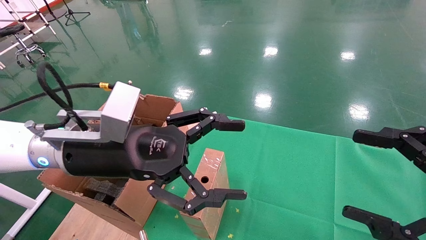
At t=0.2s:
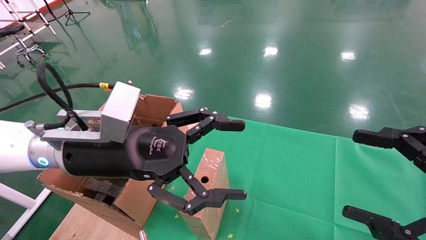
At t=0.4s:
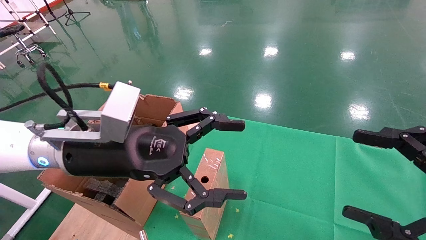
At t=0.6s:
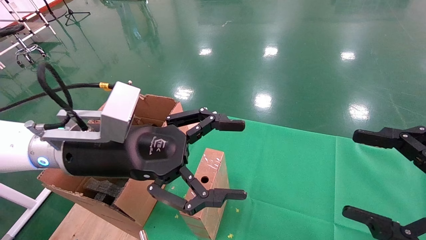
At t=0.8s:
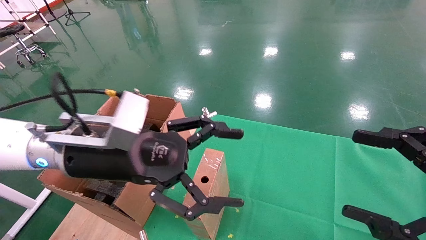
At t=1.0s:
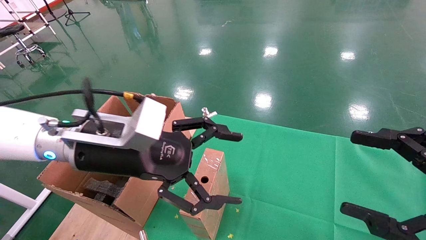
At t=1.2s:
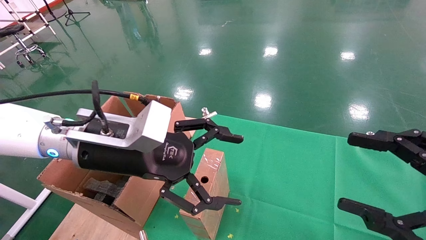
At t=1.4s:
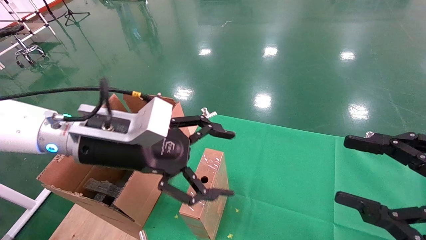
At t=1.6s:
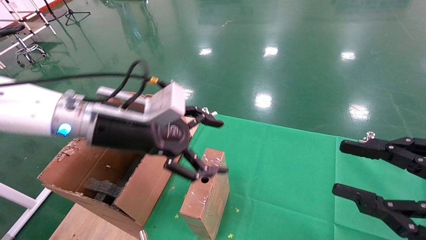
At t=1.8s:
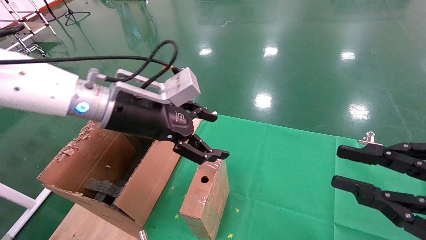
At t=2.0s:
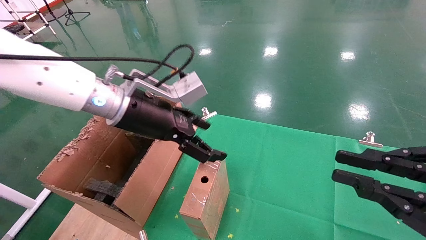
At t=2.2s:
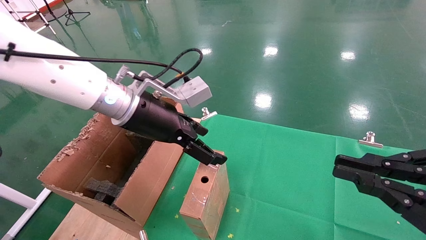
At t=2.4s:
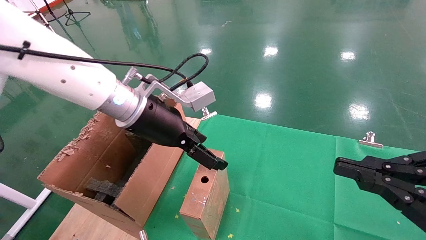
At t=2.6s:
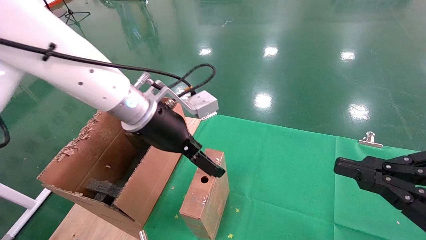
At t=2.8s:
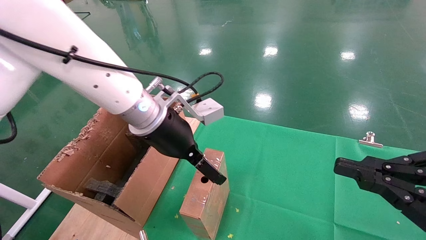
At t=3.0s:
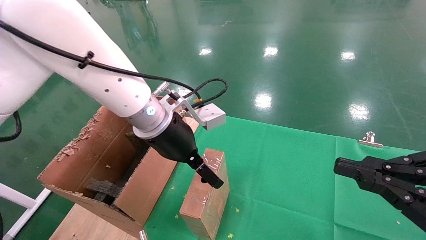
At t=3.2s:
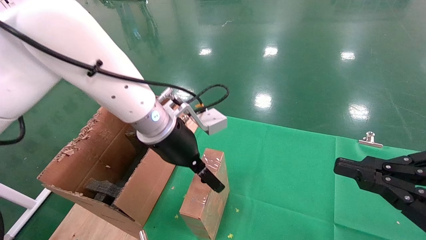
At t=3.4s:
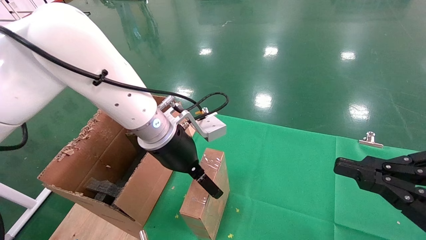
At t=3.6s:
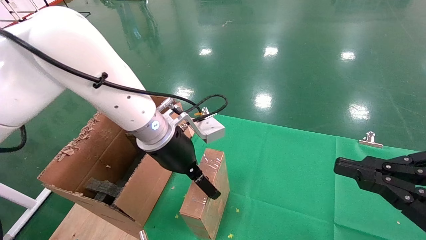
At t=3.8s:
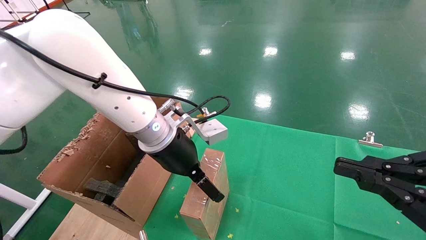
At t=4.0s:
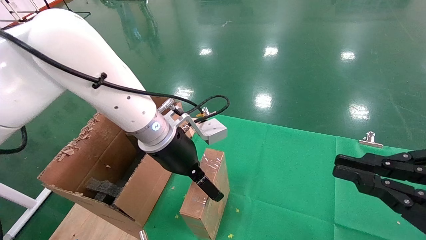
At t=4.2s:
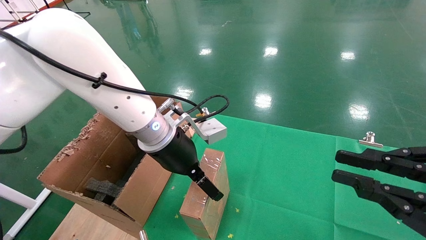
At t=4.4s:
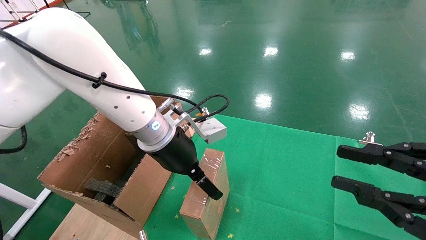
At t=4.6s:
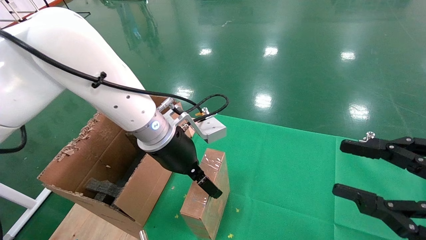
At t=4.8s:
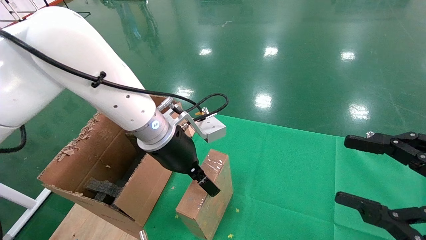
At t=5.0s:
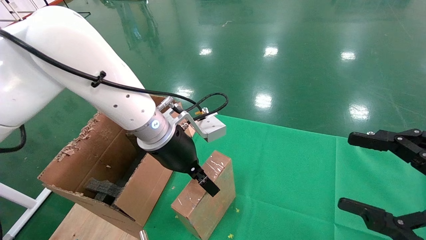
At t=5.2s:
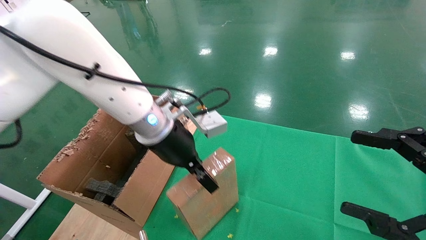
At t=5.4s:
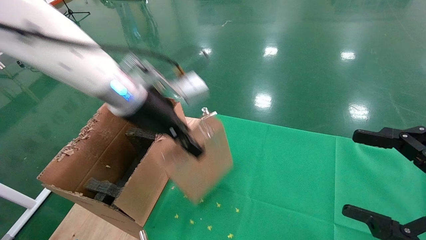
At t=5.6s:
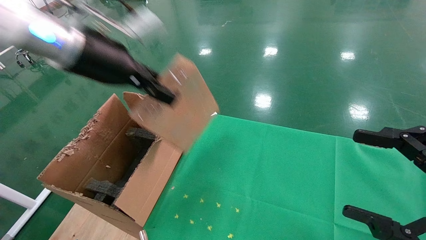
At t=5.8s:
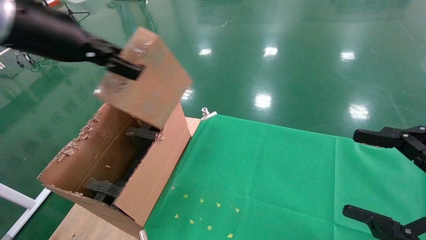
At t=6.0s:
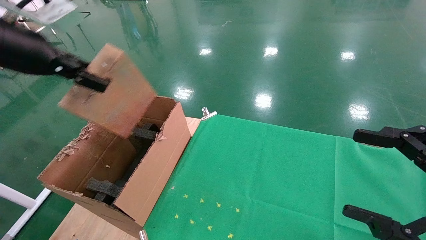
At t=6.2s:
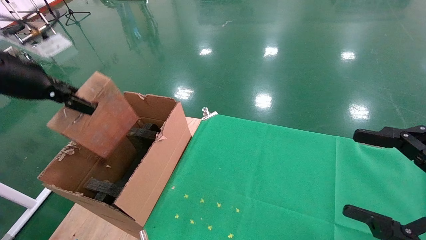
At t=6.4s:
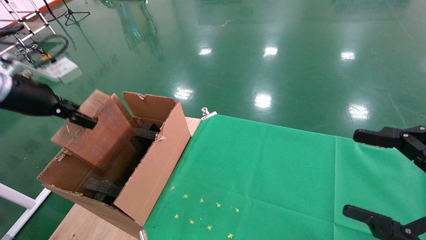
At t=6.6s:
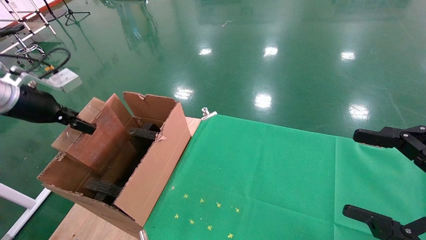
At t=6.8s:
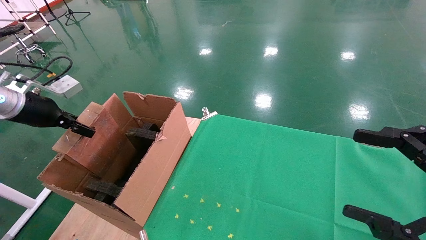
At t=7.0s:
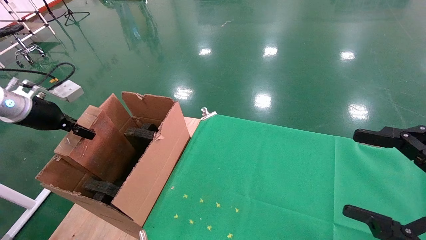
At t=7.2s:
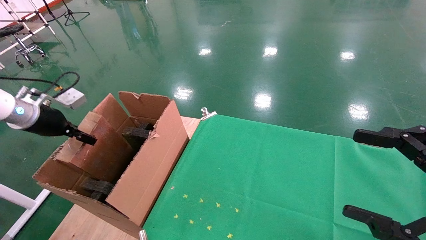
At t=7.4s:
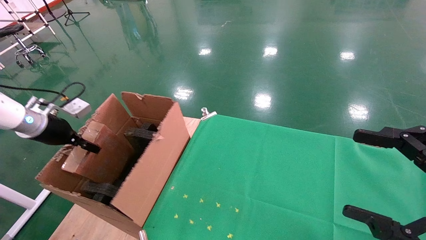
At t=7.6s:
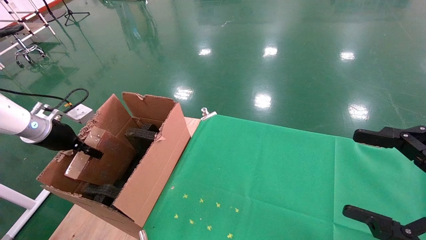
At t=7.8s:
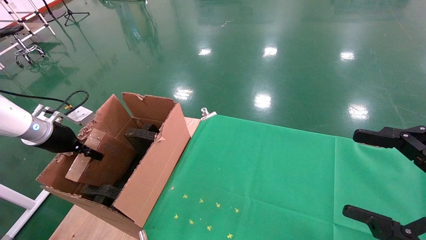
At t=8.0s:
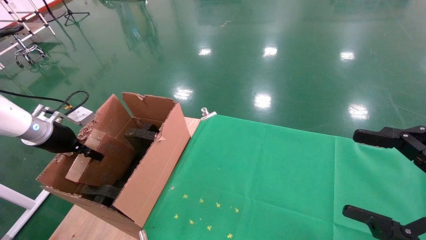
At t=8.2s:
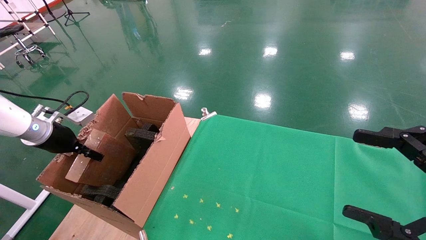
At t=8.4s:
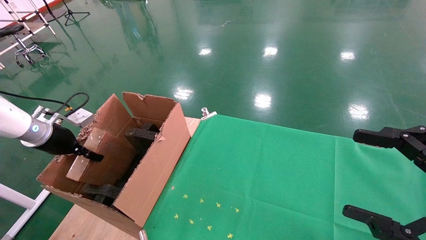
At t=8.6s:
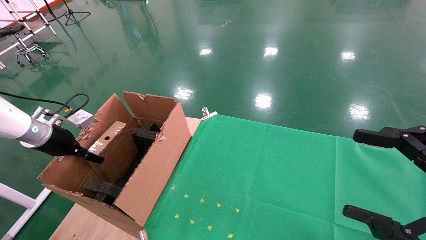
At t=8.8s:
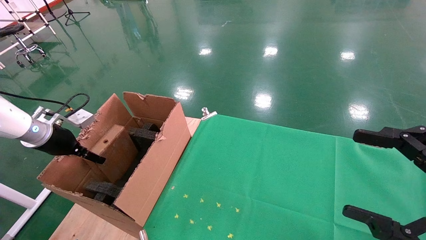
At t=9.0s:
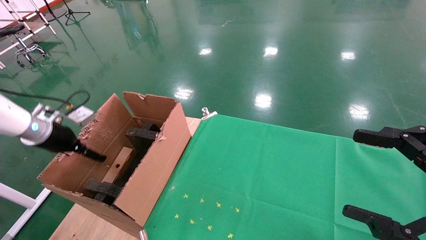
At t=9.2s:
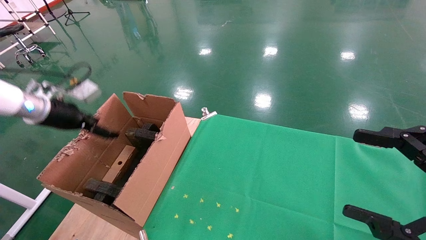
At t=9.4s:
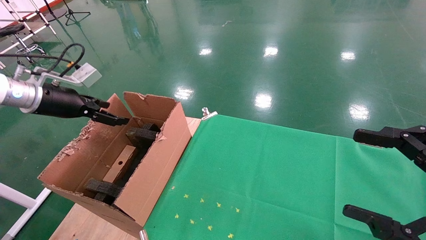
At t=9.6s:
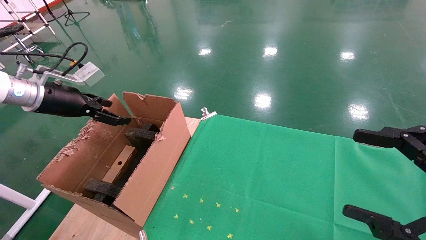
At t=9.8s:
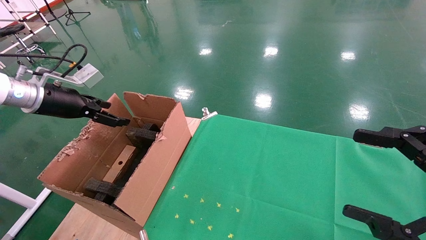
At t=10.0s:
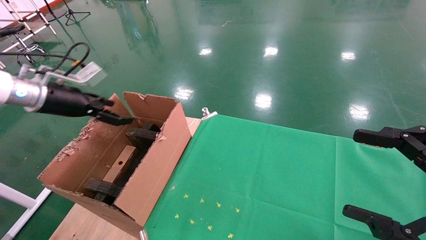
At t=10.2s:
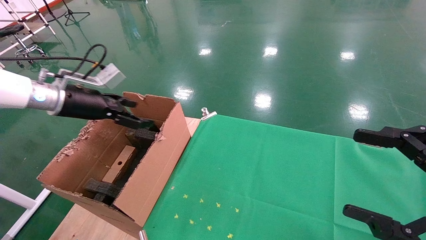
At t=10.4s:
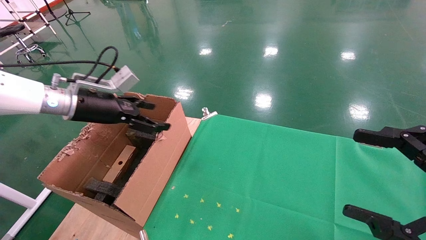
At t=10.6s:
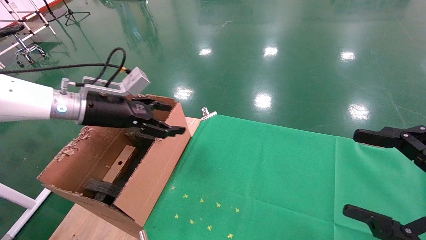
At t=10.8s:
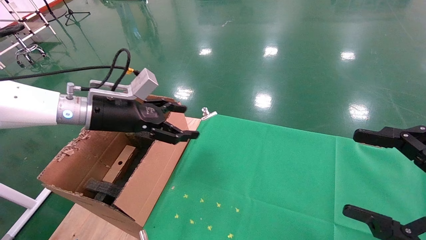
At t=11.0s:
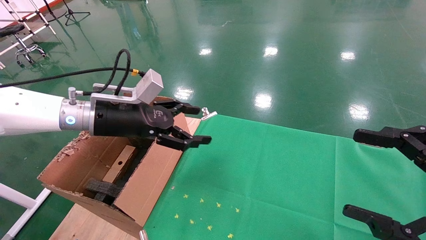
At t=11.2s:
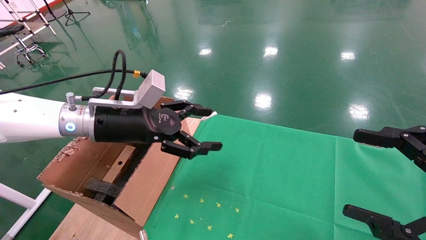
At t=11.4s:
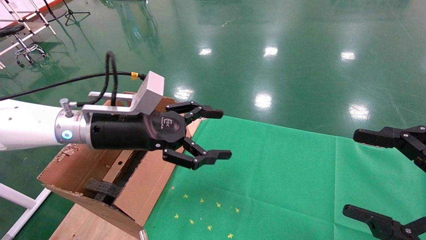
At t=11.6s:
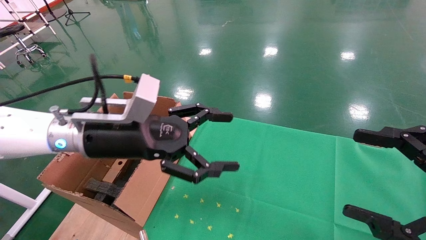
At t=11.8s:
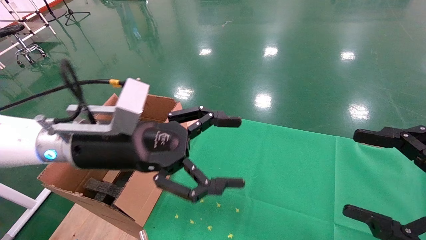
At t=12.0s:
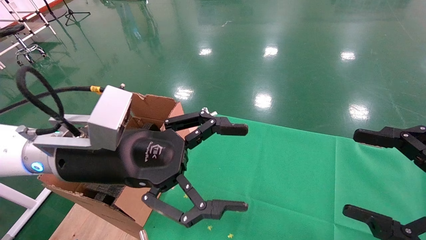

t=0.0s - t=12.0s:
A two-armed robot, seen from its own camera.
Task of the whole recording: using a robotic arm to pick up a cardboard box and palace it the carton.
Step, t=1.0s - t=5.0s: Pick up the mouse and the power cord paper box.
Step, t=5.2s - t=9.2s: Place the mouse and the power cord paper box into the container.
t=0.0s - t=1.6s: The left gripper moves about 5 cm. The right gripper closes its fingers.
t=1.6s - t=3.0s: The left gripper moves to the right, about 5 cm; the right gripper closes up.
t=3.0s - t=4.4s: The grippers stay close to where they were, moving slightly.
t=4.4s - t=6.0s: The right gripper opens up. Meanwhile the left gripper is displaced to the left and upward by roughly 25 cm, and closes up.
t=6.0s - t=7.6s: The left gripper moves downward, to the left and forward, about 25 cm.
t=7.6s - t=9.0s: The left gripper opens its fingers.
t=9.0s - t=10.4s: The left gripper goes approximately 10 cm to the right.
t=10.4s - t=12.0s: The left gripper heads to the right and backward, covering approximately 20 cm.

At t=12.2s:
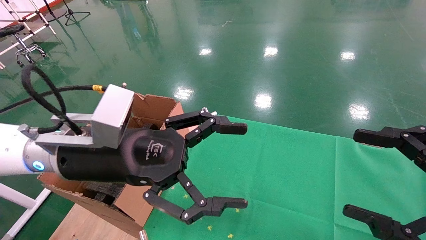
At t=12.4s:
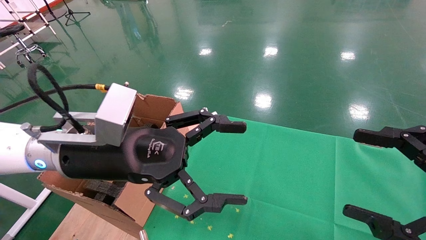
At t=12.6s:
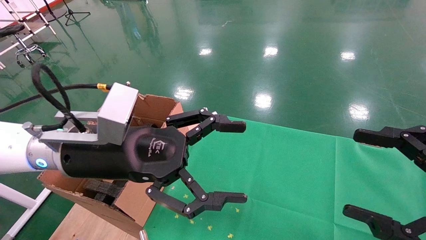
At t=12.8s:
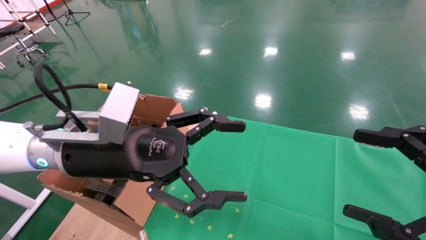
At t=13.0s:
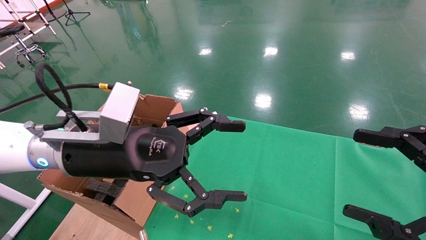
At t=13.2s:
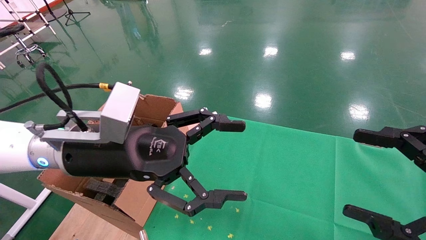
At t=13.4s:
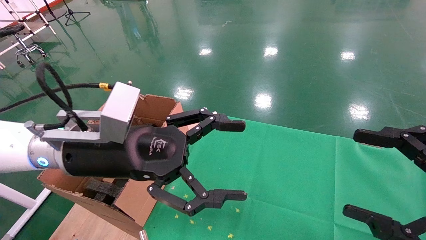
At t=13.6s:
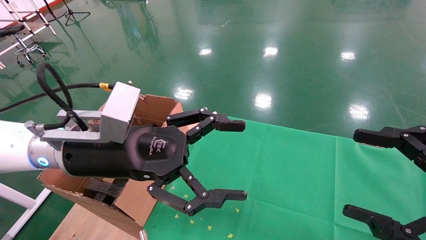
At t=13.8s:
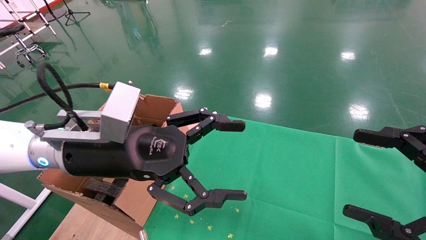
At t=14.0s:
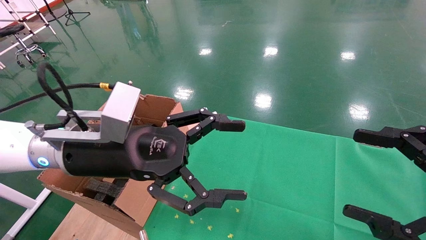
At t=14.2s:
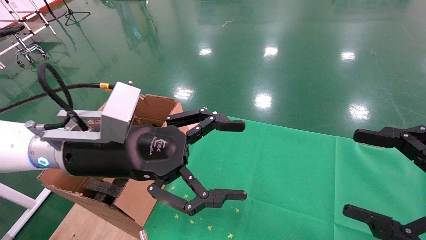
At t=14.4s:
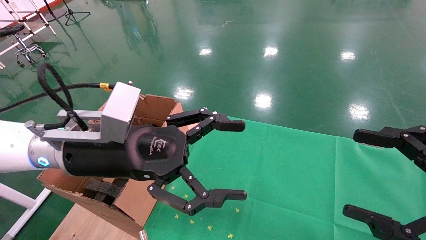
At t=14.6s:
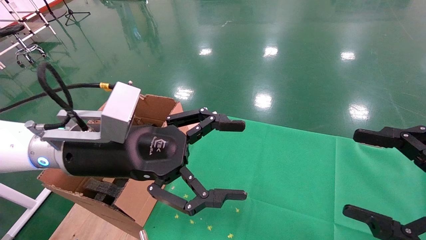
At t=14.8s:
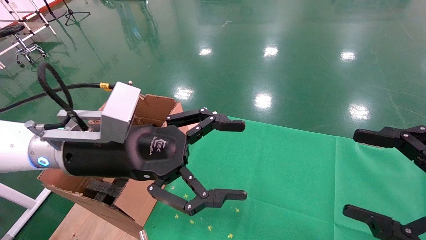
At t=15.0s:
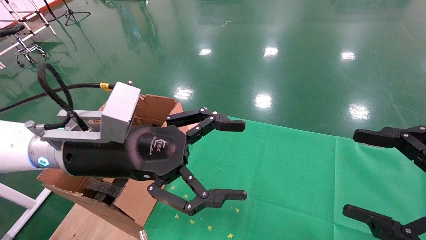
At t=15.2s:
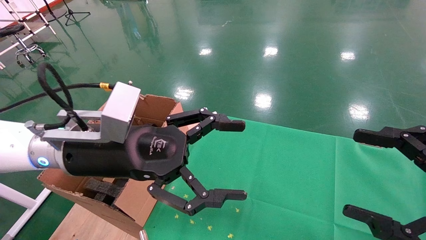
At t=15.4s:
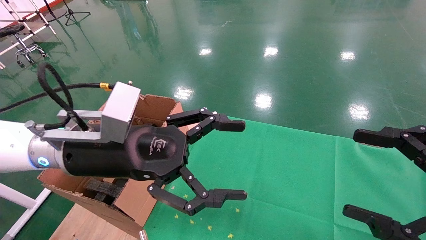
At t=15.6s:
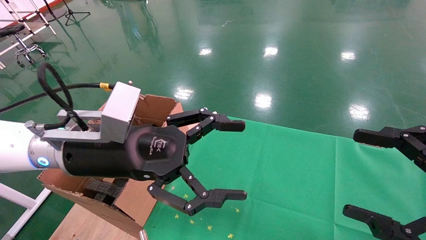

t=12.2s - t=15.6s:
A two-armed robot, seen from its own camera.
Task of the whole recording: using a robotic arm to pick up a cardboard box and palace it the carton.
t=12.2s - t=15.6s: Both grippers stay put.

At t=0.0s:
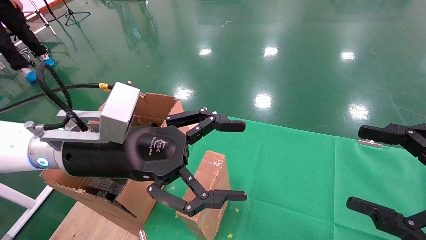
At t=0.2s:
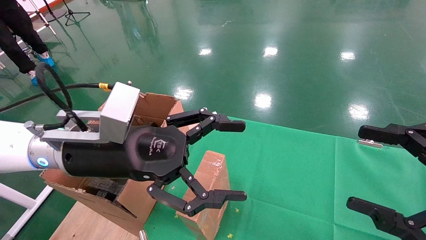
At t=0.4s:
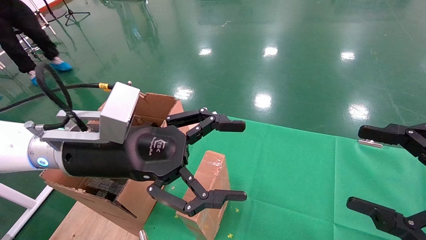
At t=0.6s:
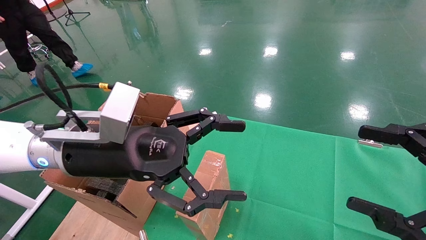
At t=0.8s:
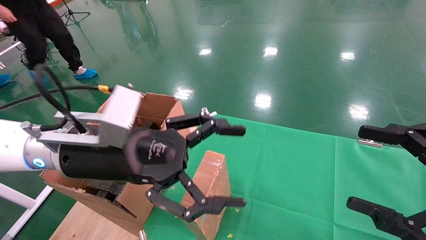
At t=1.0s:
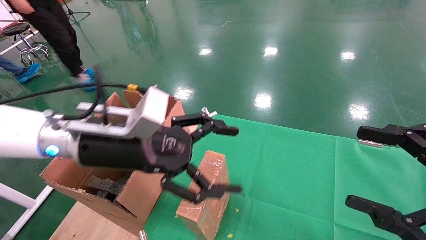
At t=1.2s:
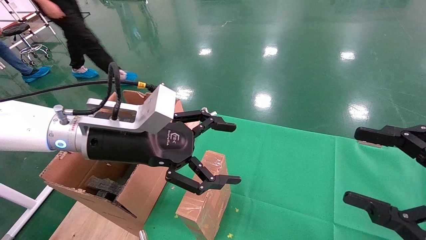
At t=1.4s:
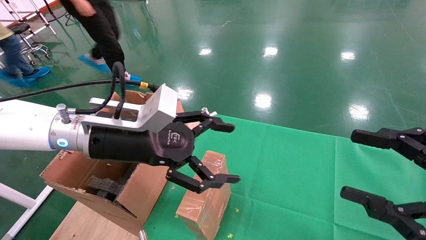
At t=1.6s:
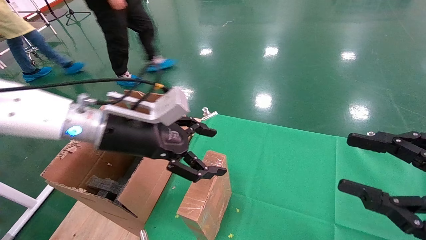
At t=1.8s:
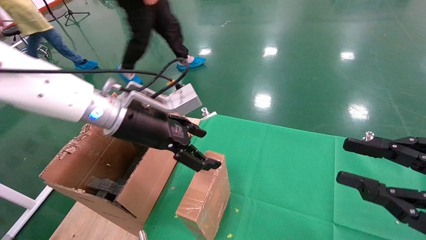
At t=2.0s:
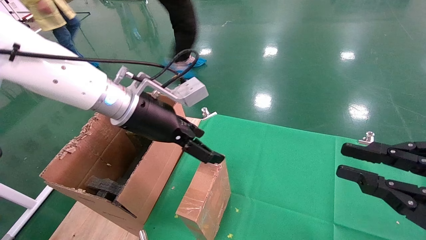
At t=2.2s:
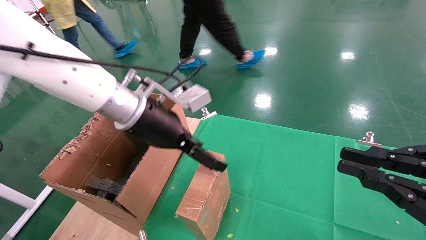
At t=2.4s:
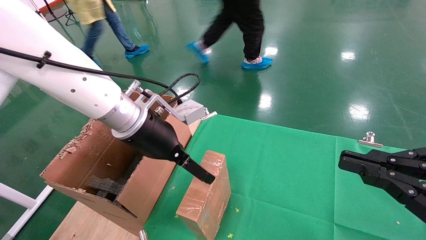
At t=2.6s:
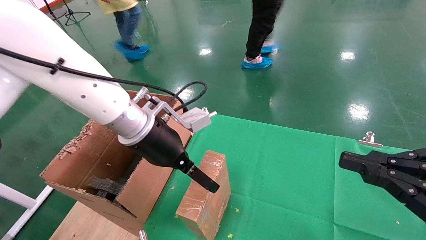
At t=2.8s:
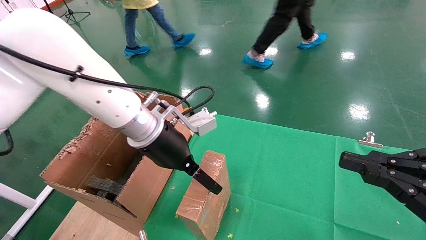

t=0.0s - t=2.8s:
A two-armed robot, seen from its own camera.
Task of the whole recording: using a robotic arm to pick up a cardboard box and palace it the carton.
t=1.4s - t=2.8s: The left gripper shifts some 10 cm to the right and forward, while the right gripper closes its fingers.
